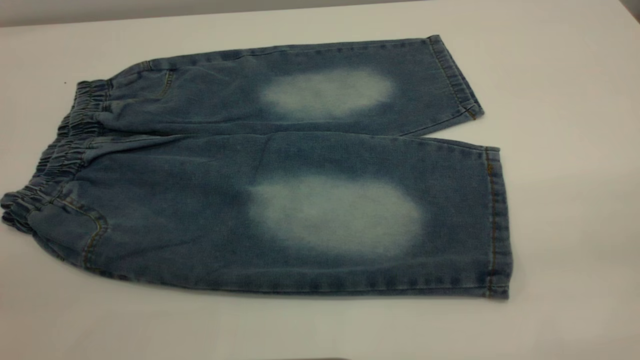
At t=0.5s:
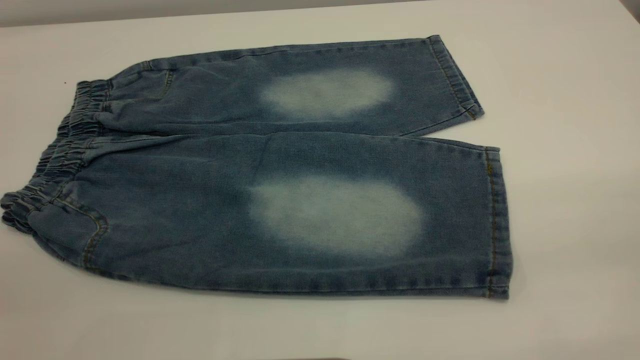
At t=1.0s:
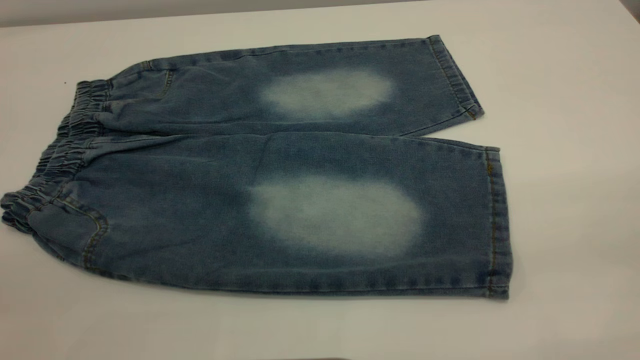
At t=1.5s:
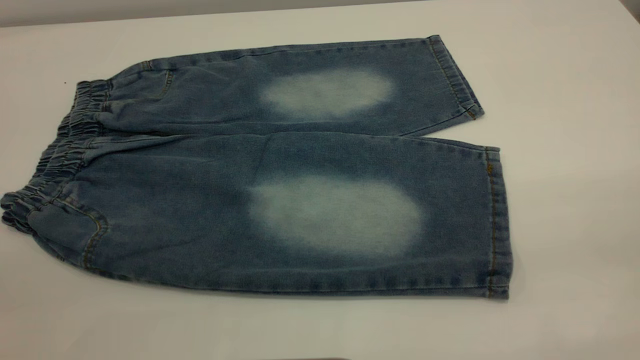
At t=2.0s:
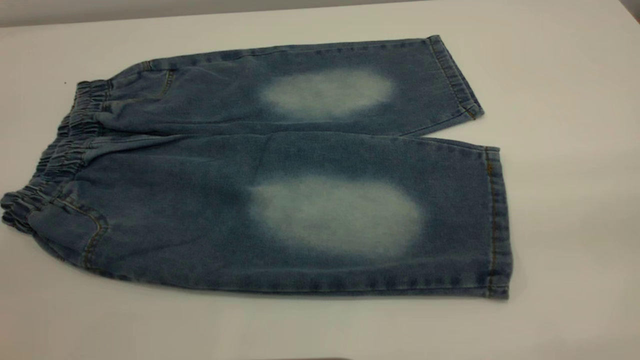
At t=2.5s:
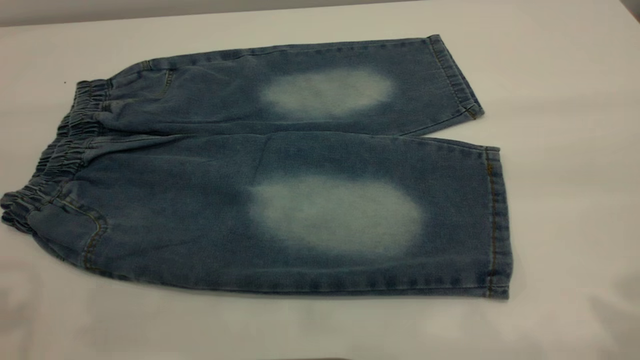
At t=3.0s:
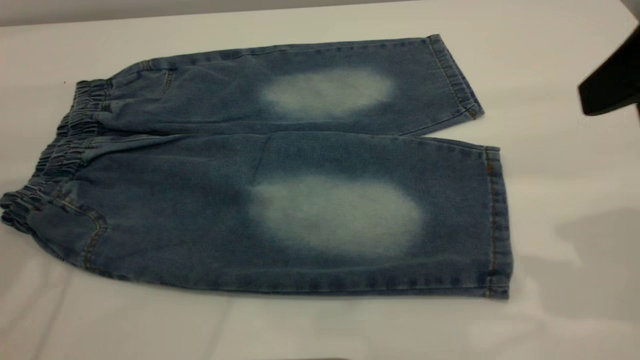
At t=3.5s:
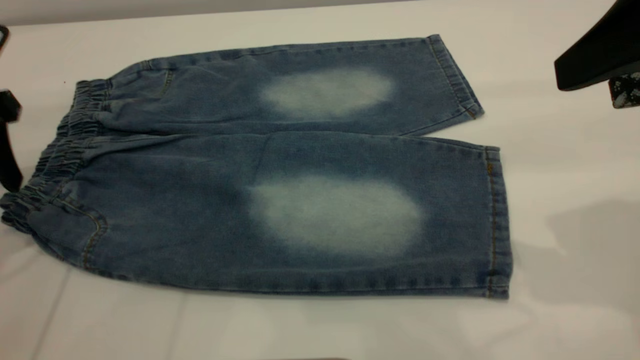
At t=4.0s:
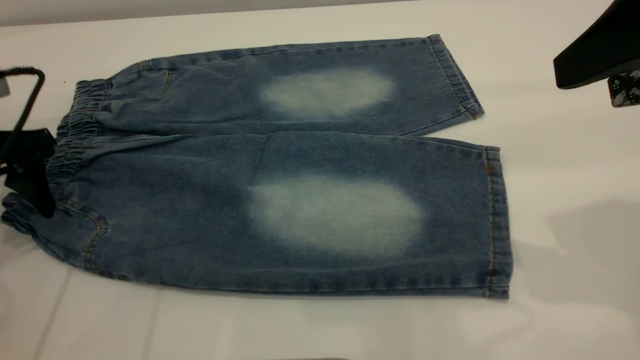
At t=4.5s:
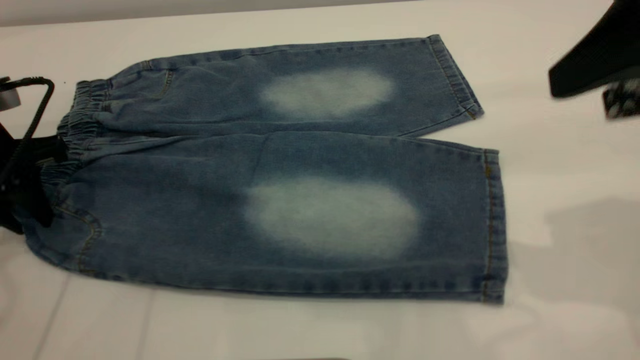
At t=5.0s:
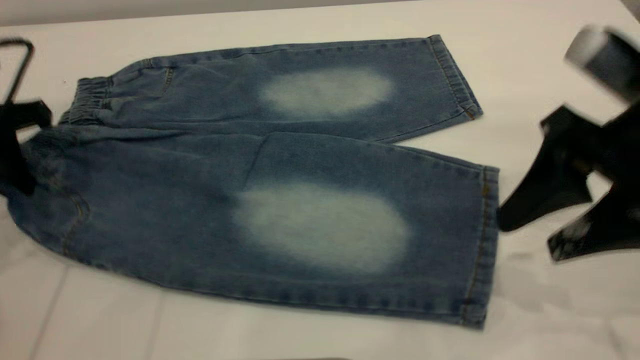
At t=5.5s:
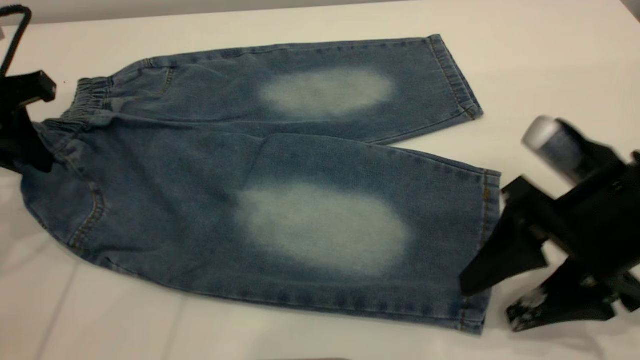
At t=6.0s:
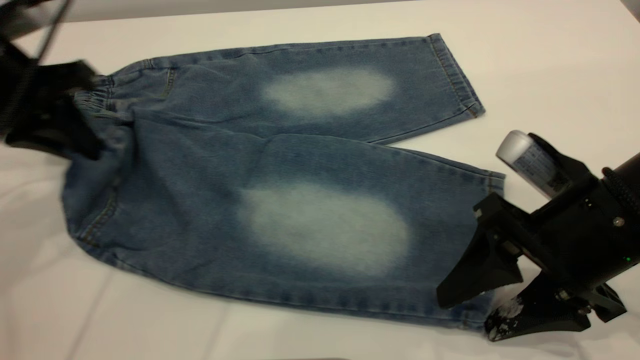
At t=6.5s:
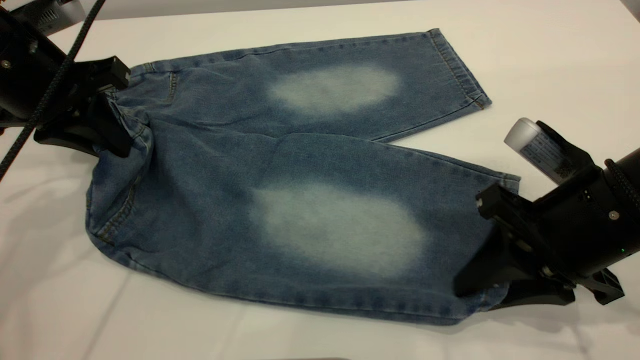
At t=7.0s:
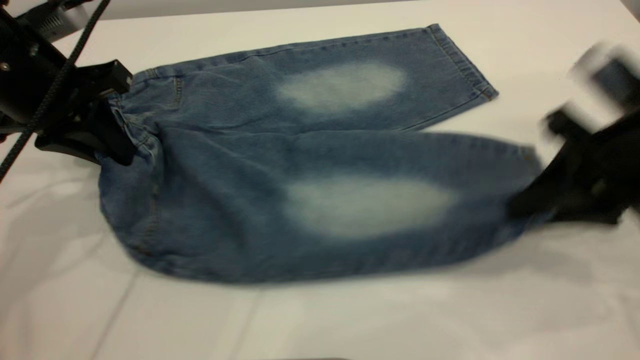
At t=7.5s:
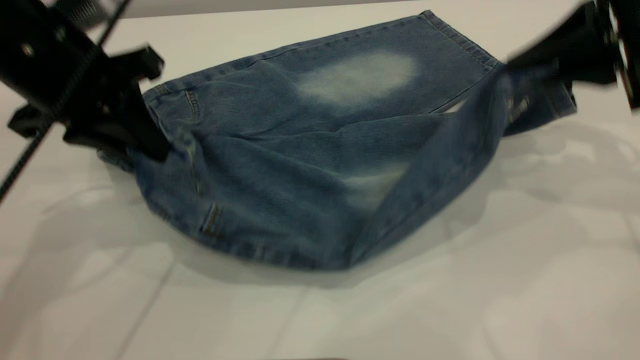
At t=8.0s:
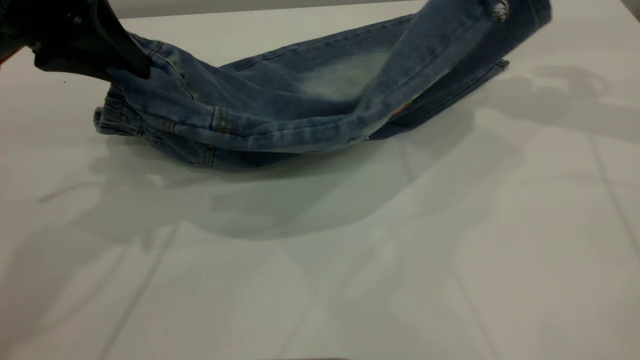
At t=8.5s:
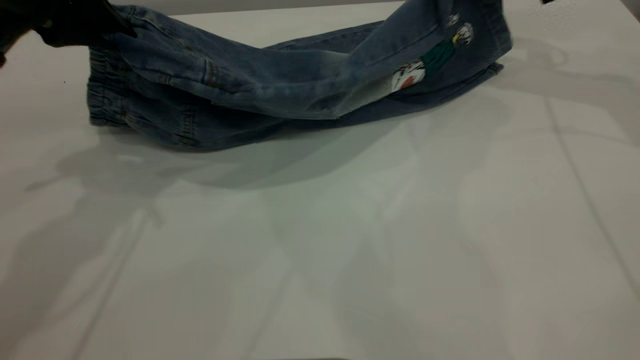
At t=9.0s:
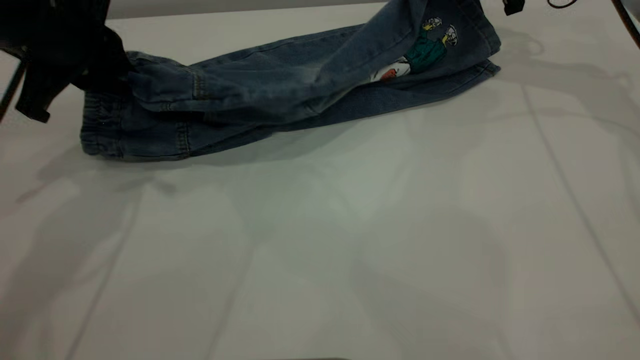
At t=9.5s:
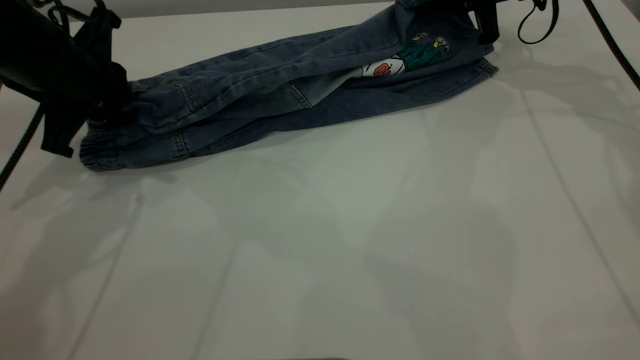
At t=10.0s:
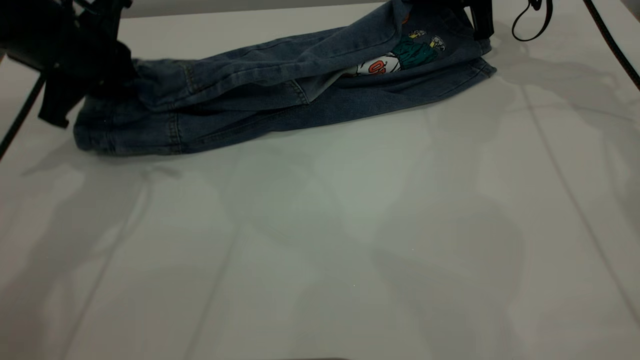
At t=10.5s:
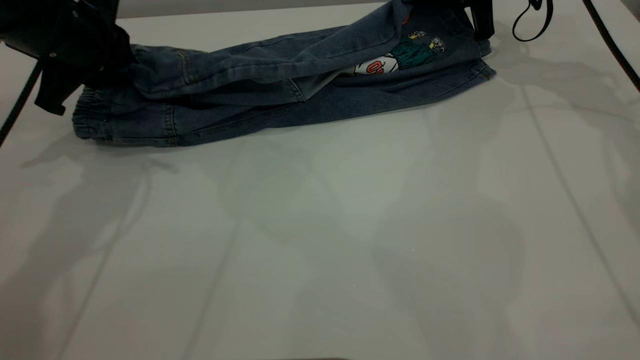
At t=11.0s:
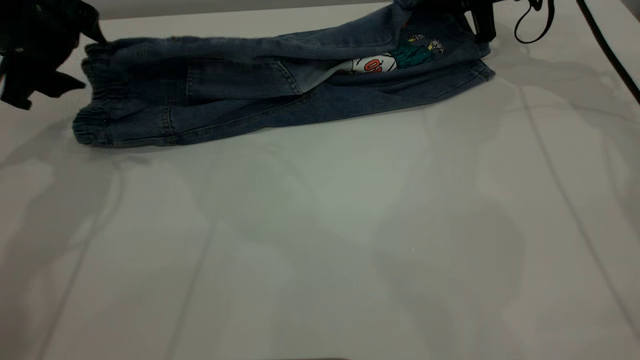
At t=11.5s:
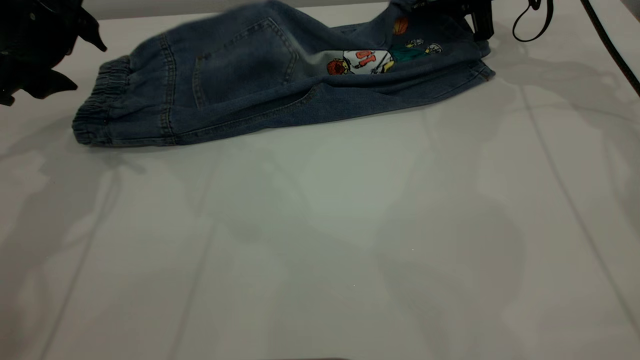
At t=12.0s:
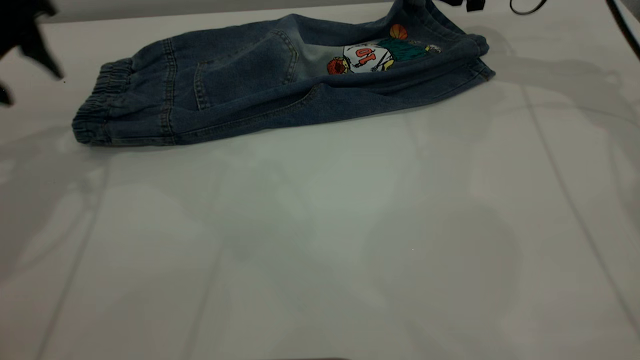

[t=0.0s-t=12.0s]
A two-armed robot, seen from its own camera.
t=2.0s to t=4.0s: The left gripper moves forward and downward, about 35 cm; the right gripper is displaced forward and downward by approximately 20 cm.
t=4.0s to t=6.0s: The left gripper heads to the right, covering some 5 cm, and closes its fingers. Meanwhile the right gripper heads downward, covering about 15 cm.
t=6.0s to t=8.0s: The right gripper travels forward, upward and to the right by about 25 cm, and closes. Meanwhile the left gripper shifts roughly 10 cm upward and to the right.
t=8.0s to t=10.0s: The left gripper travels downward and forward by approximately 10 cm; the right gripper moves forward and downward, some 15 cm.
t=10.0s to t=12.0s: The left gripper goes some 5 cm to the left, and opens its fingers. The right gripper opens its fingers.

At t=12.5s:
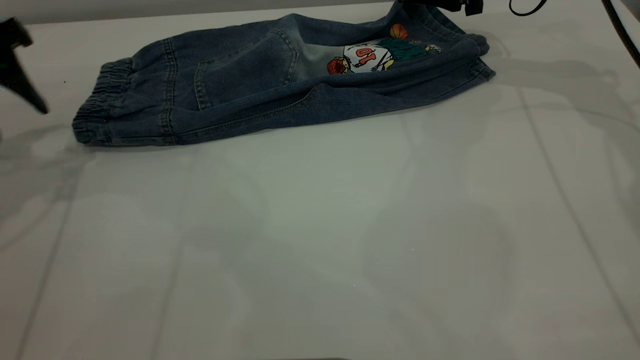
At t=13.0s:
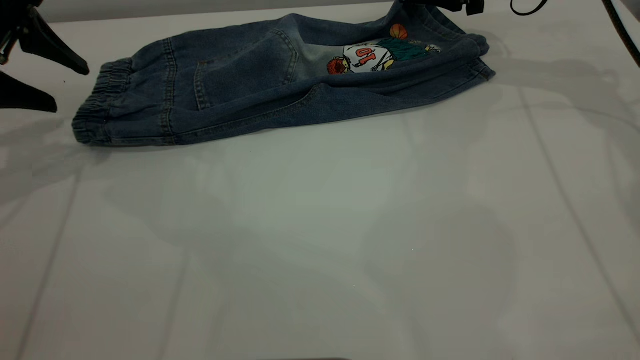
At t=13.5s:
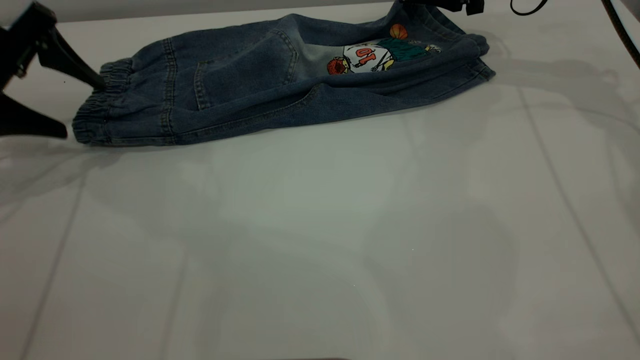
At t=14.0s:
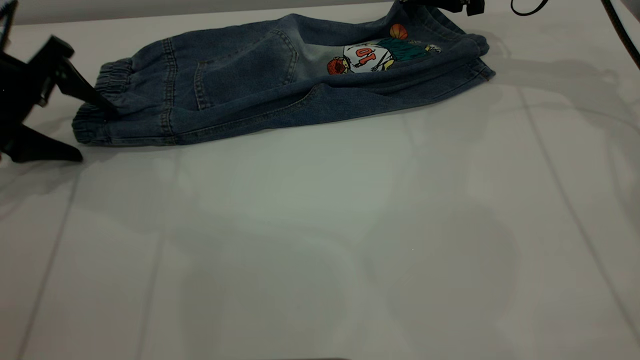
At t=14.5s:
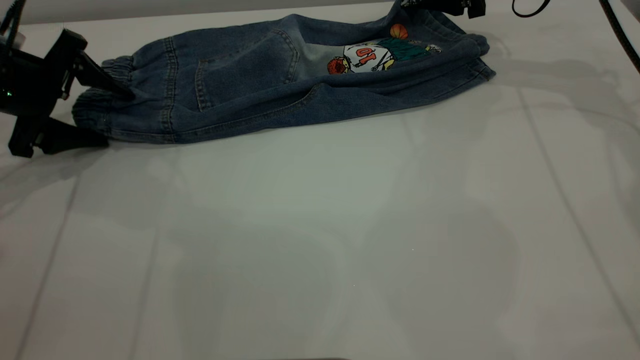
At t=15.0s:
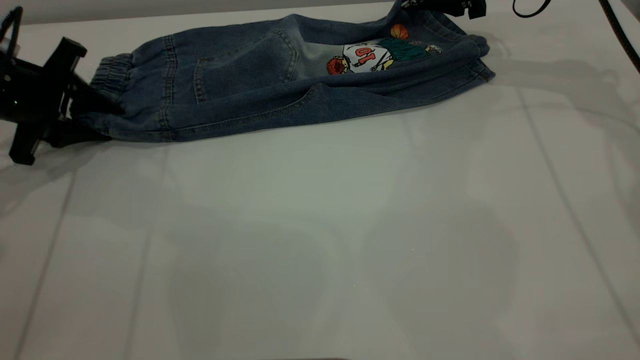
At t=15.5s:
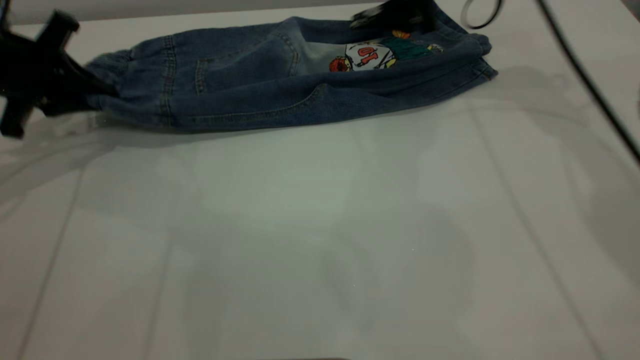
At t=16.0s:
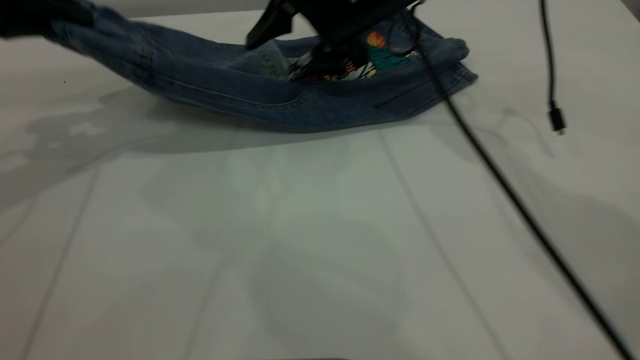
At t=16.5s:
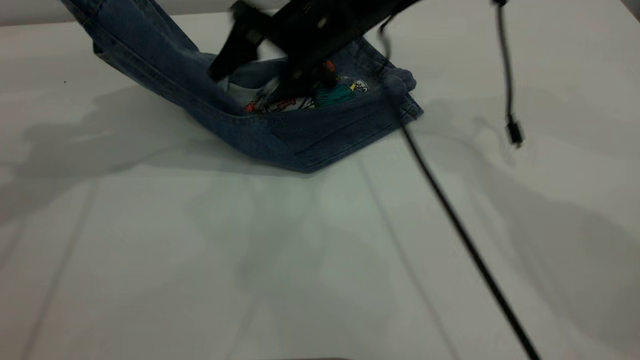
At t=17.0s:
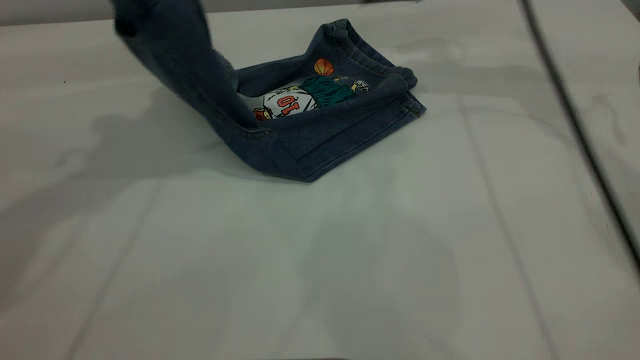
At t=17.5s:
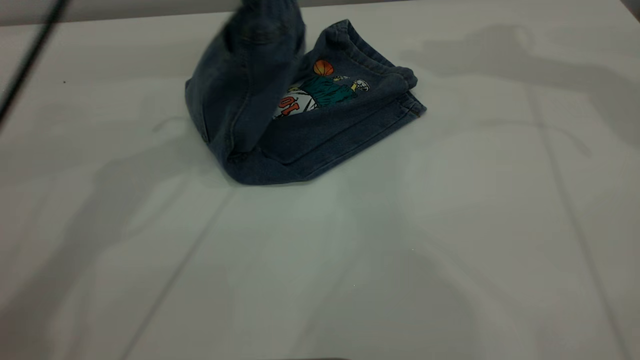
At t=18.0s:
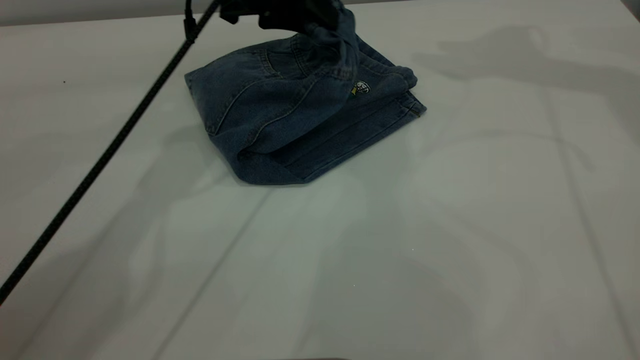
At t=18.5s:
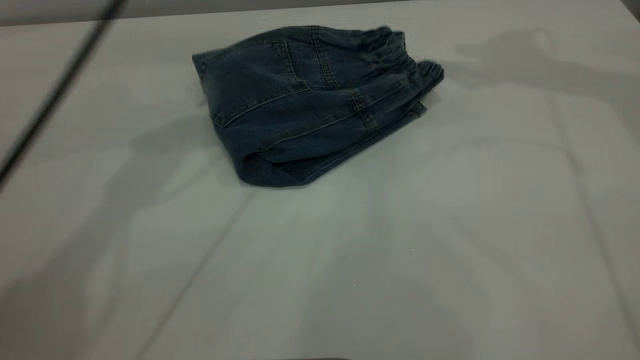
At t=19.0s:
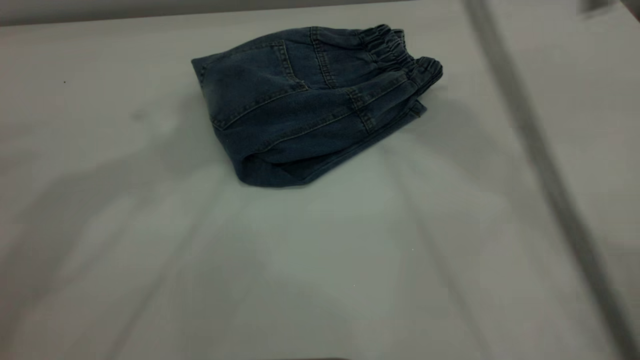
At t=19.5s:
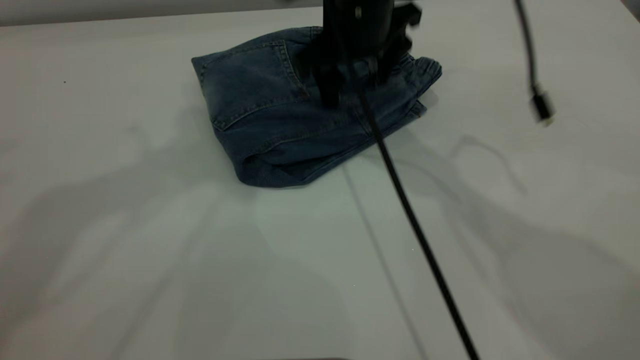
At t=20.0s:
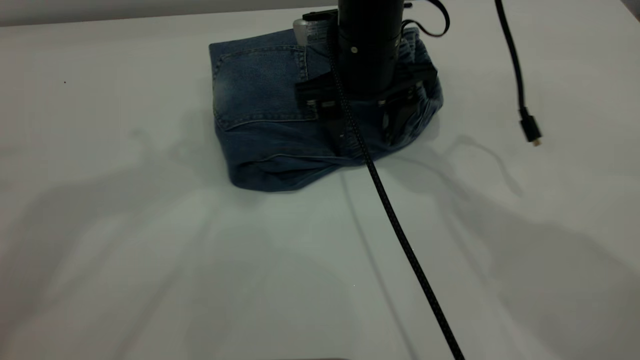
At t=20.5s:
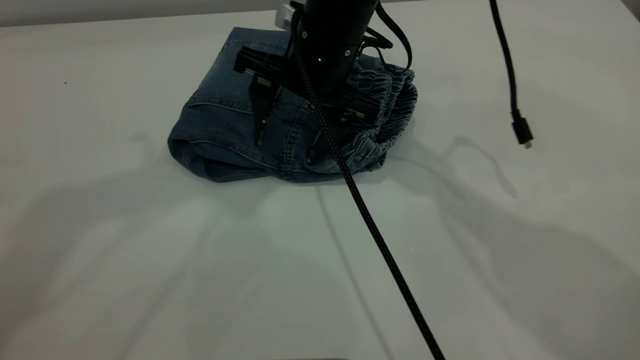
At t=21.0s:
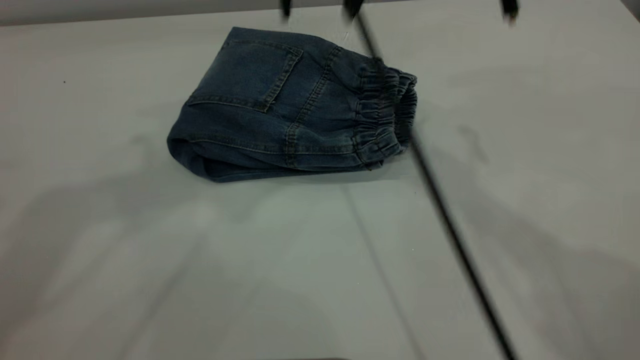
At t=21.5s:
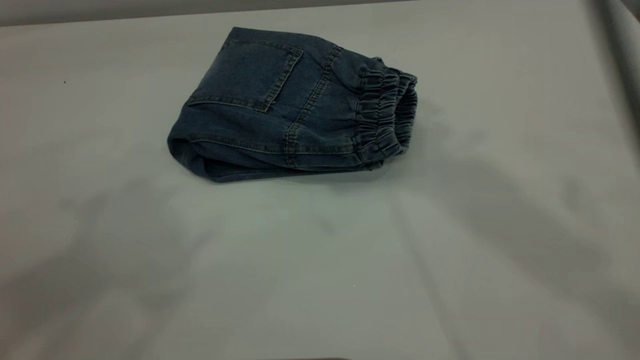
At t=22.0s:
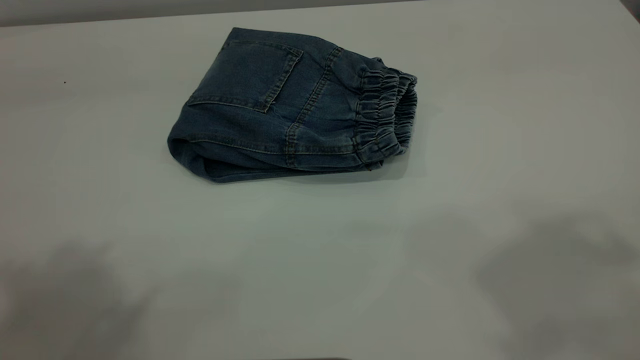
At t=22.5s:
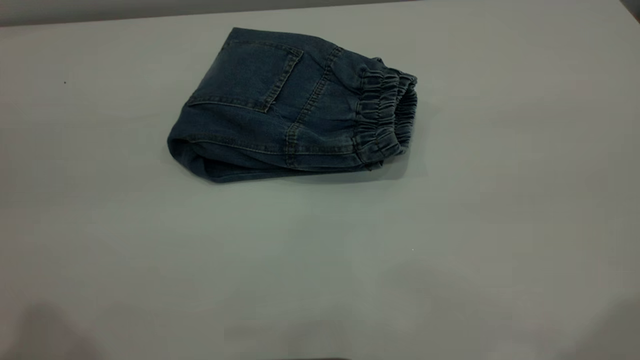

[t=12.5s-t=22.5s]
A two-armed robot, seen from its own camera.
Step, t=12.5s to t=18.5s: Fold the pants from left to right.
t=12.5s to t=14.5s: The left gripper goes about 10 cm downward.
t=14.5s to t=16.5s: The right gripper travels to the left by about 20 cm, while the left gripper shifts roughly 20 cm upward, and closes.
t=16.5s to t=18.5s: The right gripper shifts roughly 30 cm upward and to the right. The left gripper heads to the right and forward, covering roughly 20 cm, and opens its fingers.
t=18.5s to t=20.5s: The right gripper moves to the left and downward, approximately 35 cm. Meanwhile the left gripper travels upward and backward by some 20 cm.
t=20.5s to t=22.5s: The left gripper goes about 20 cm backward. Meanwhile the right gripper heads backward, upward and to the right, covering approximately 40 cm.
